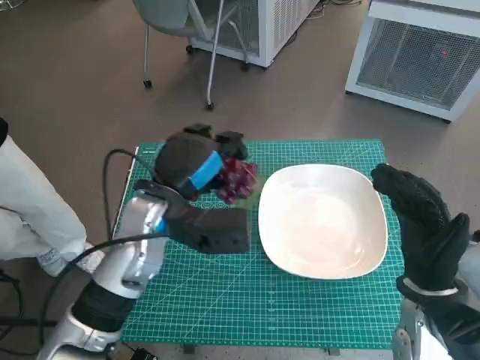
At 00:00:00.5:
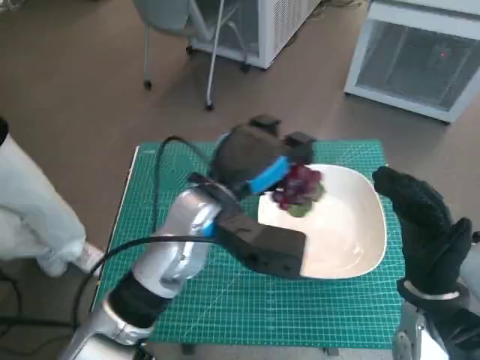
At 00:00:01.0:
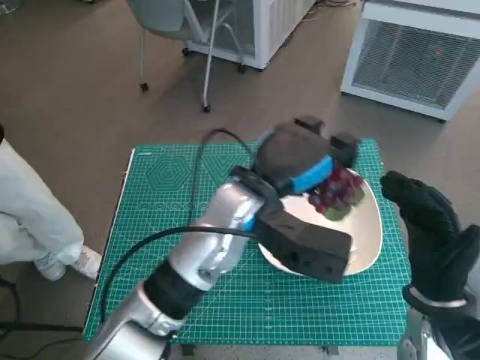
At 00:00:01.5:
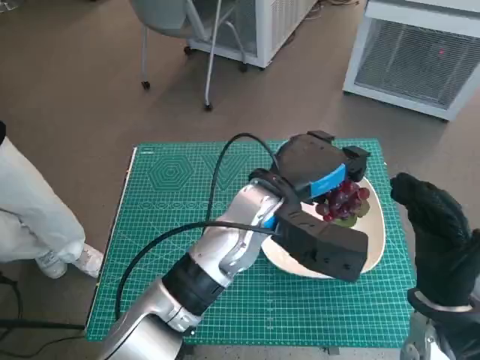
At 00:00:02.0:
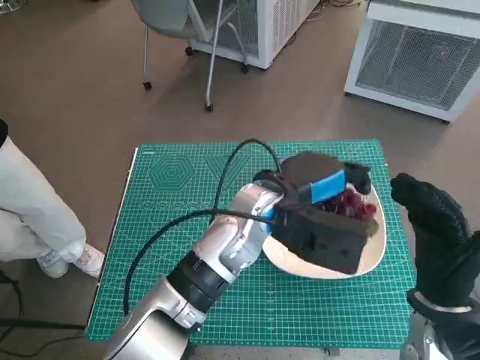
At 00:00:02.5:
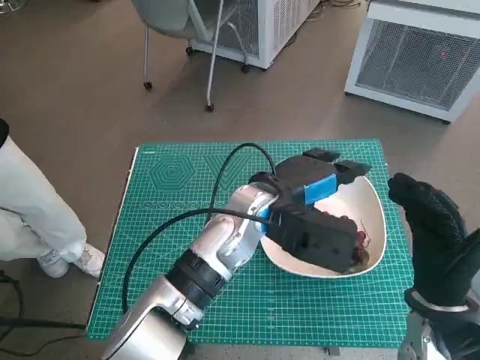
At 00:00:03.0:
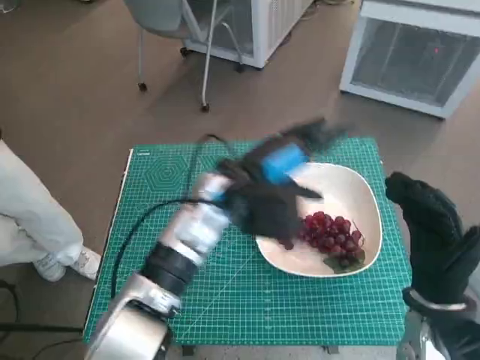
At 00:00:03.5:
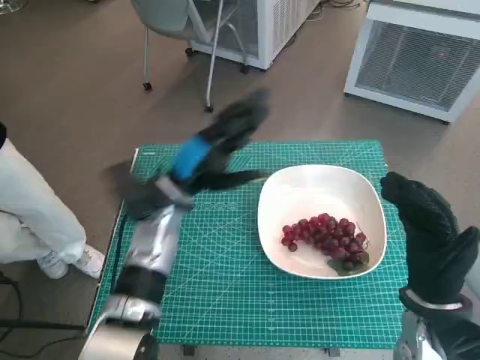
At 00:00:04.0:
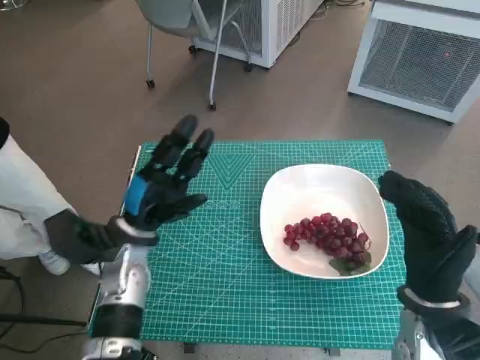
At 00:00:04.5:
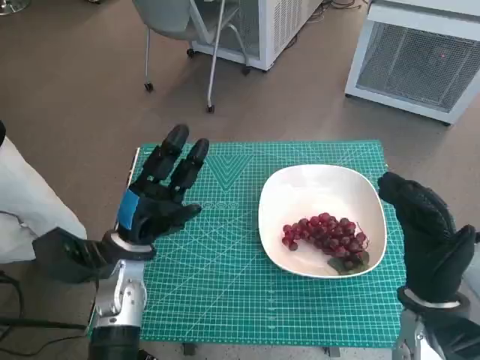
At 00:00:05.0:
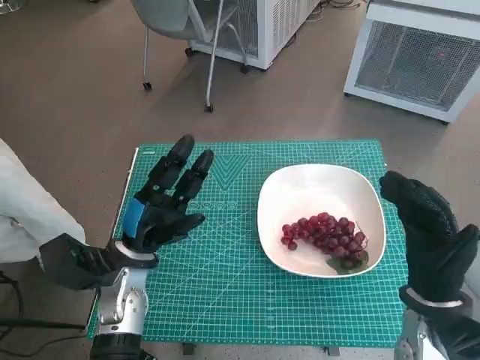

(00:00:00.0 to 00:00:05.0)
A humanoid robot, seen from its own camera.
Task of the whole recording: Pick up the grapes and put them on the plate.
Step, 00:00:00.0 - 00:00:02.0: Place the grapes in the plate with left hand.
00:00:00.0 - 00:00:02.5: The left hand travels to the right by approximately 10 cm.
00:00:02.5 - 00:00:05.0: The left hand goes some 20 cm to the left and downward.
